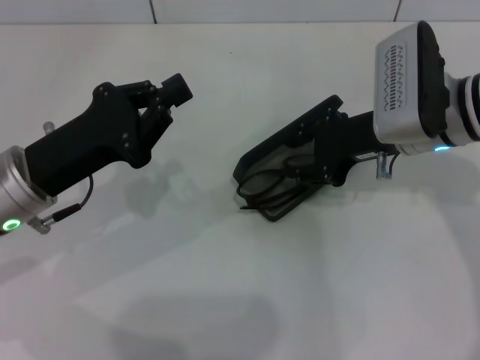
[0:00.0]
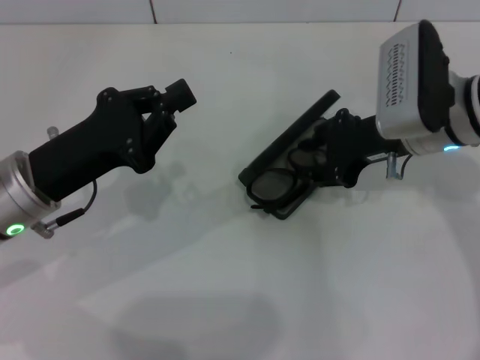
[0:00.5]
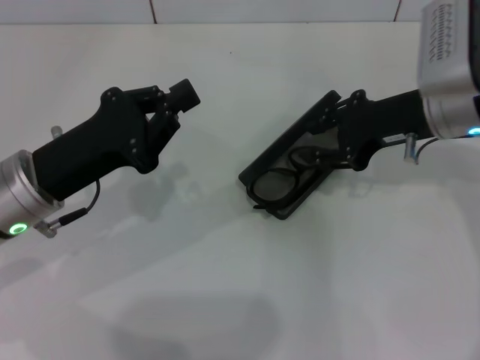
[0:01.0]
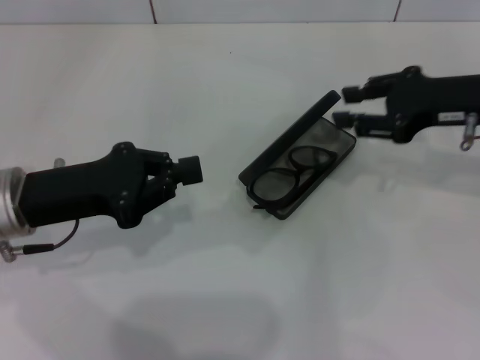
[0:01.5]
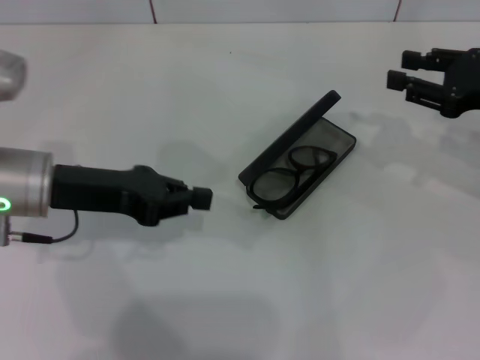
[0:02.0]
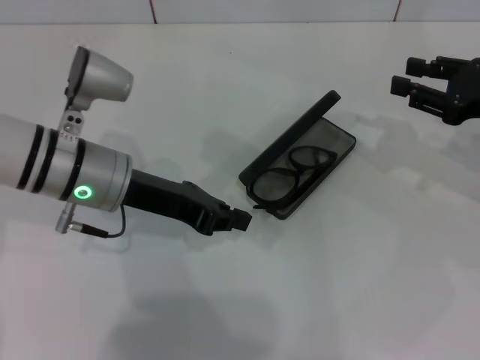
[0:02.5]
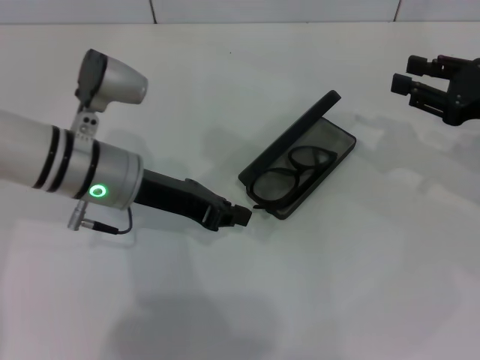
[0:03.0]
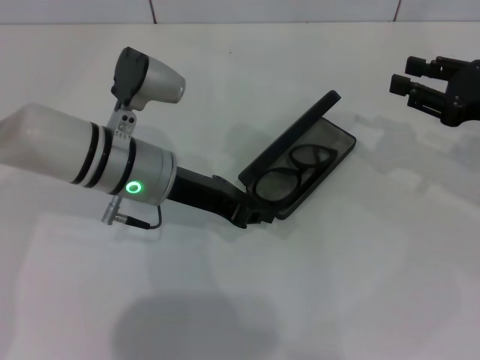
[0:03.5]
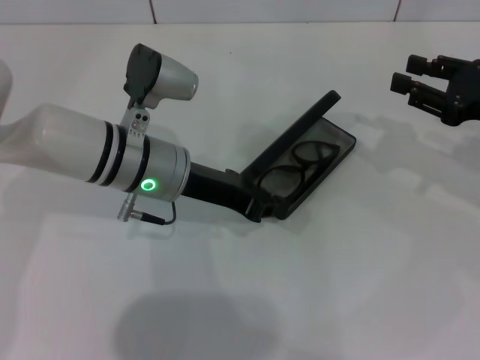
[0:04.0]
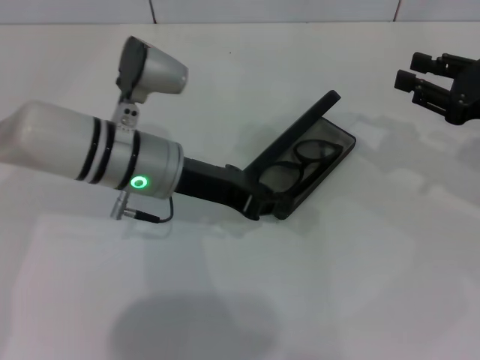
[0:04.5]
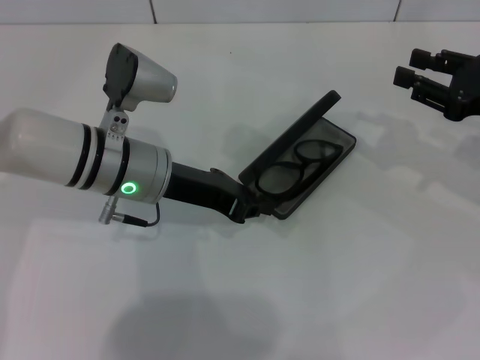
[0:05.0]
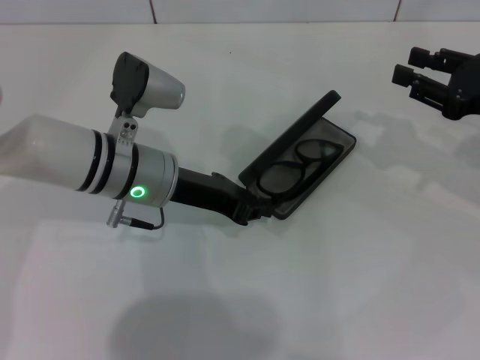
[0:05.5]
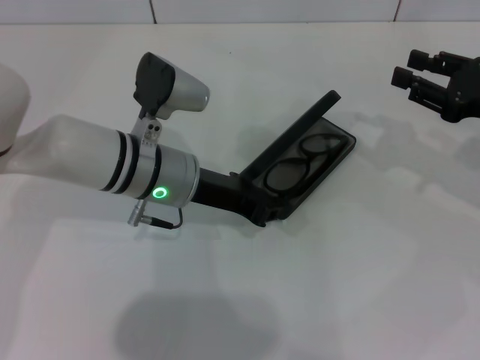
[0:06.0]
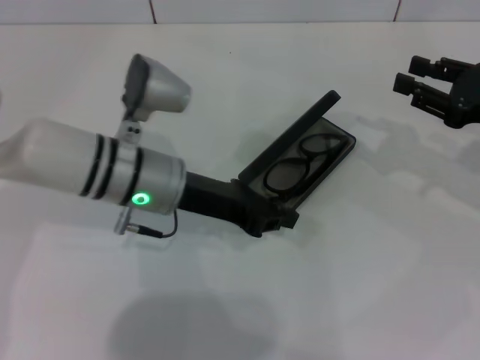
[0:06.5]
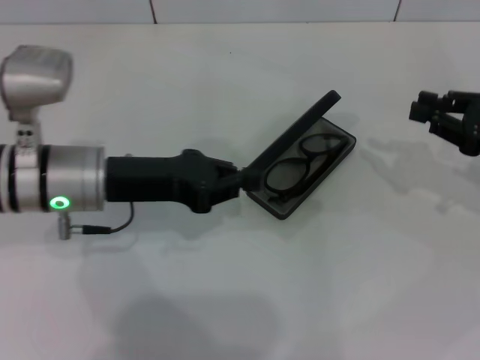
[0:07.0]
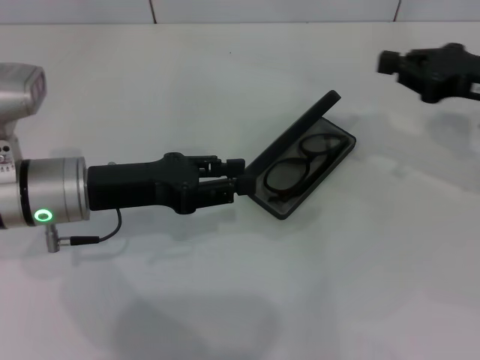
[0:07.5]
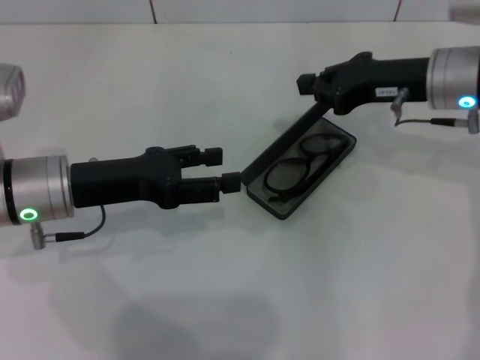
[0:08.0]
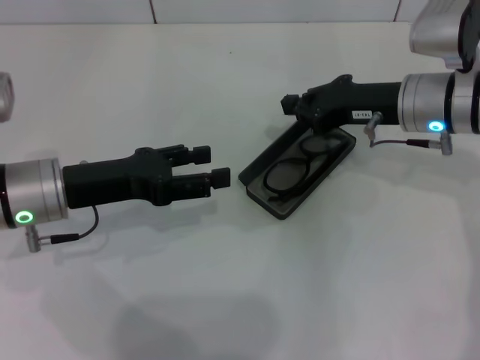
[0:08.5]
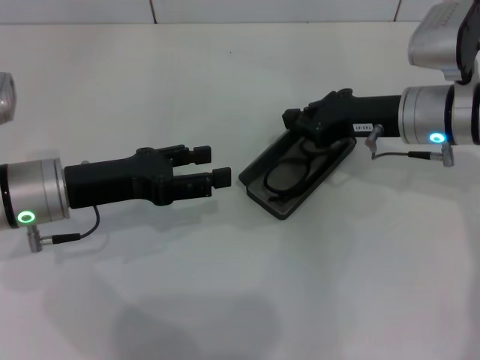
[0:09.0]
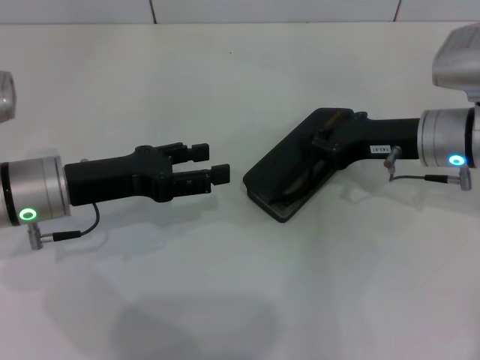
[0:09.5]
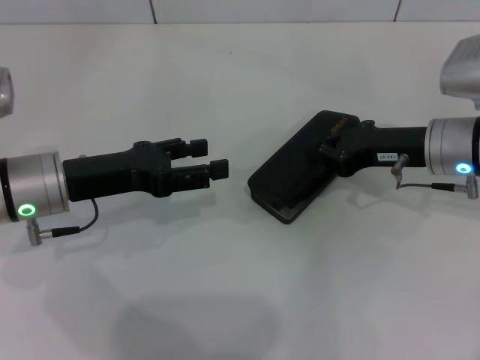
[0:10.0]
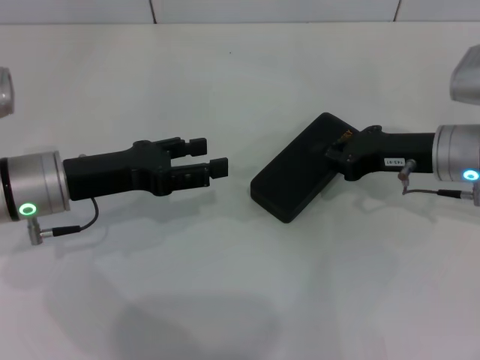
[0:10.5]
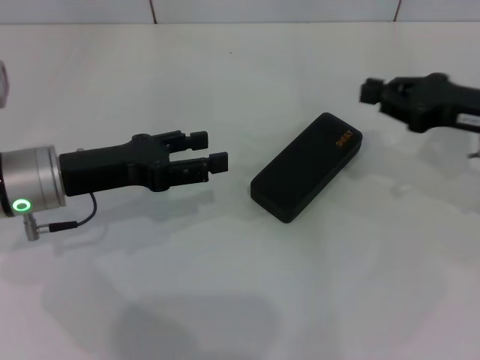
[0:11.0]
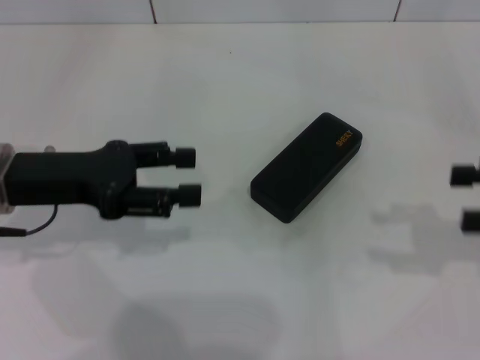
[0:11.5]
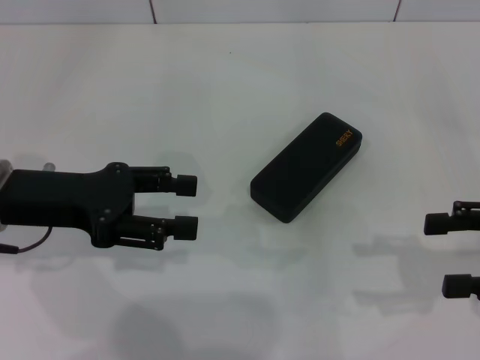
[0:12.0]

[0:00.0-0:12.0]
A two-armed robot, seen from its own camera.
Step, 0:01.0 to 0:10.0: Close the glasses case with your right hand.
0:00.0 to 0:02.0: The right gripper shifts about 15 cm to the right.
0:02.0 to 0:04.0: The left gripper heads to the right, covering some 10 cm.
0:04.0 to 0:06.0: There are only small adjustments of the grippers.
0:06.0 to 0:08.0: The left gripper moves to the left, some 10 cm, and opens its fingers; the right gripper travels to the left and forward by roughly 10 cm, and closes its fingers.
0:08.0 to 0:10.0: The right gripper heads downward, covering about 5 cm.
0:10.0 to 0:12.0: The right gripper heads to the right and backward, covering approximately 15 cm, and opens up. Meanwhile the left gripper shifts by about 5 cm.

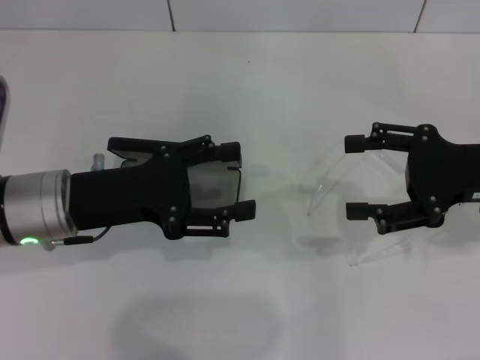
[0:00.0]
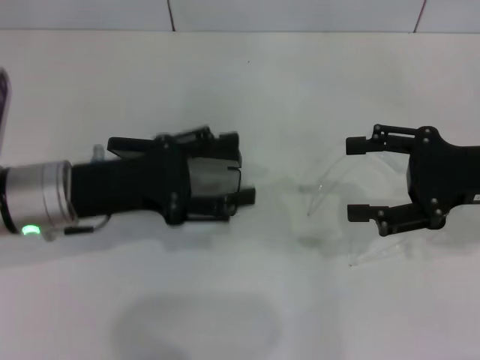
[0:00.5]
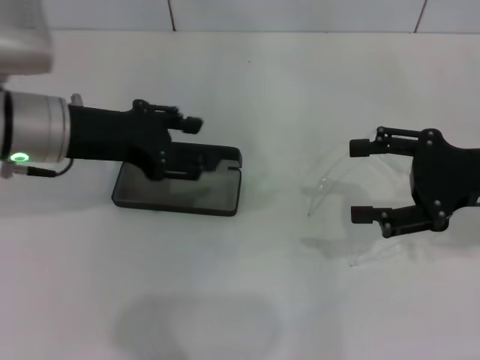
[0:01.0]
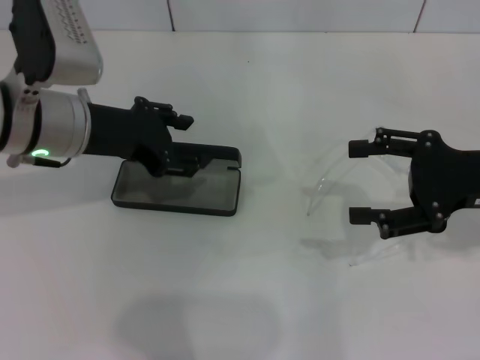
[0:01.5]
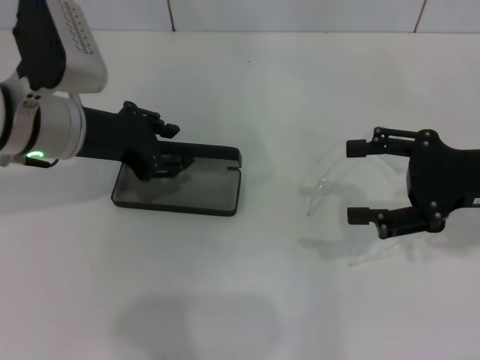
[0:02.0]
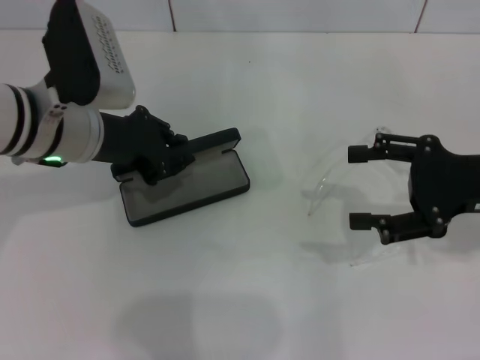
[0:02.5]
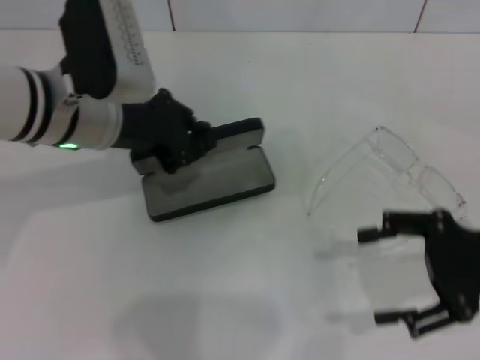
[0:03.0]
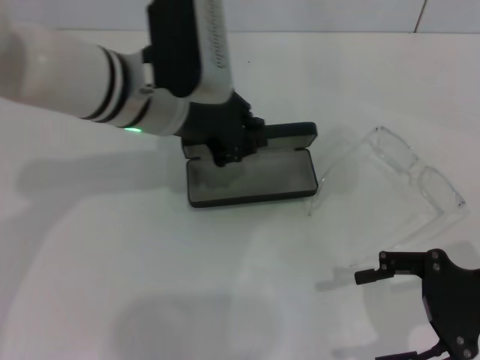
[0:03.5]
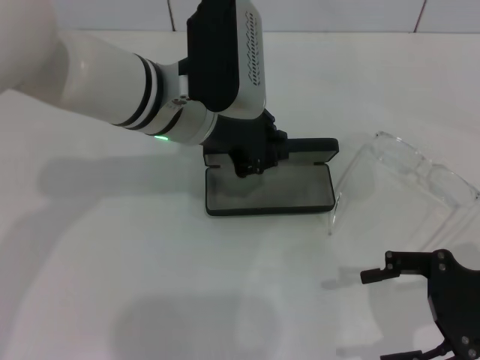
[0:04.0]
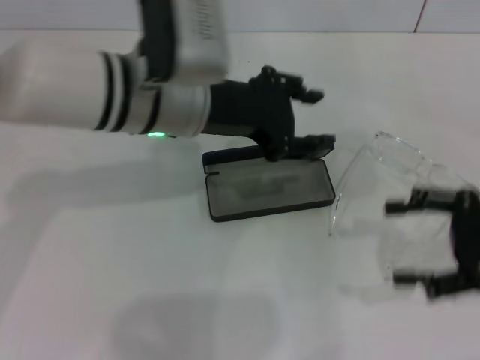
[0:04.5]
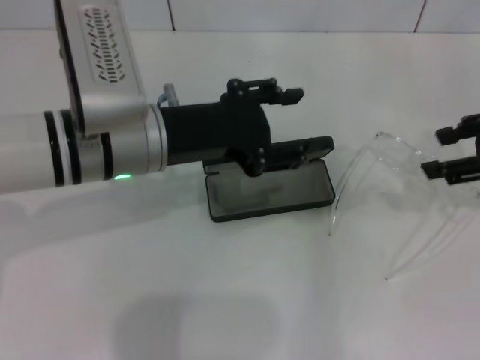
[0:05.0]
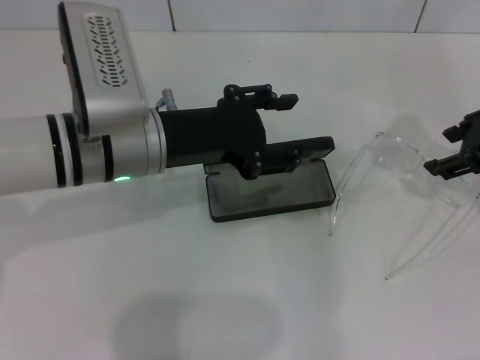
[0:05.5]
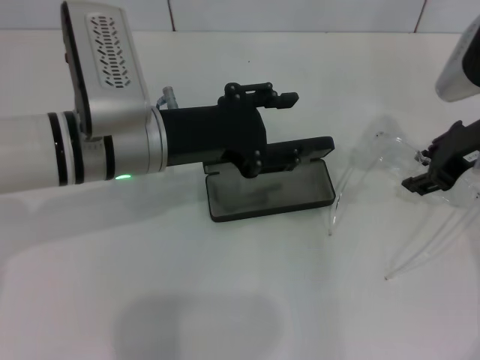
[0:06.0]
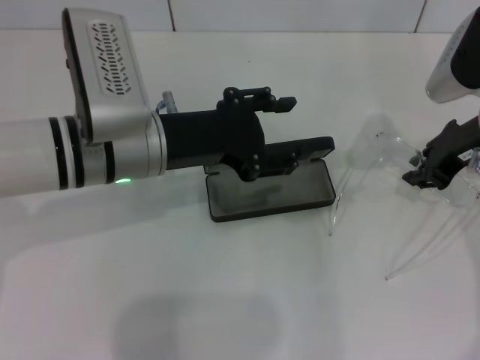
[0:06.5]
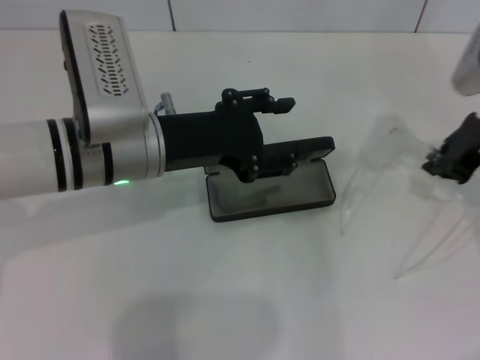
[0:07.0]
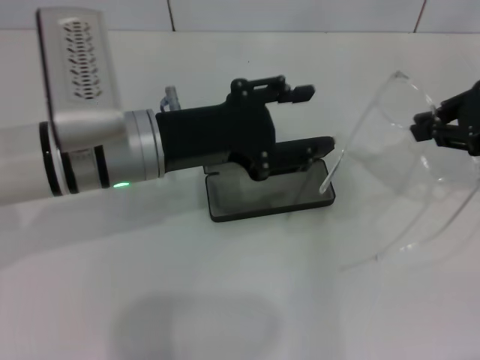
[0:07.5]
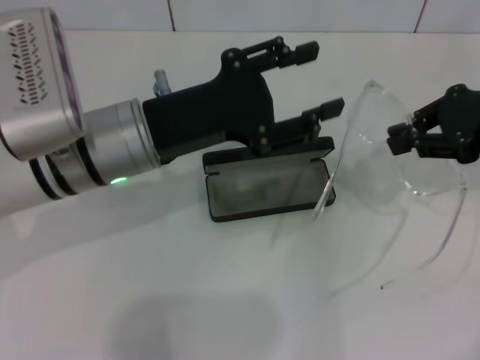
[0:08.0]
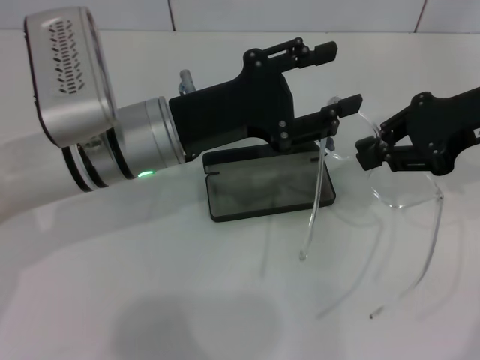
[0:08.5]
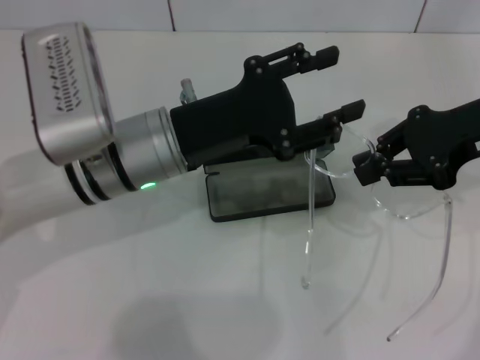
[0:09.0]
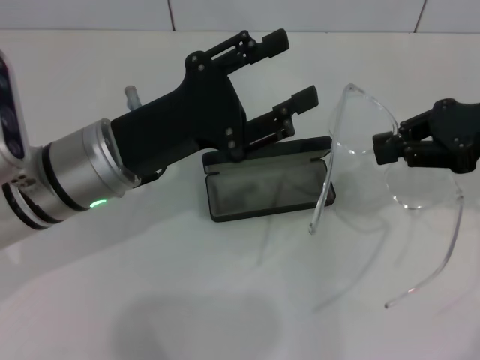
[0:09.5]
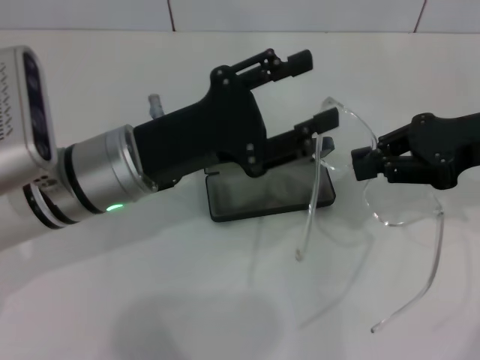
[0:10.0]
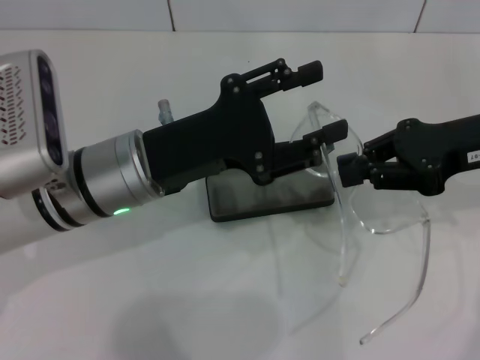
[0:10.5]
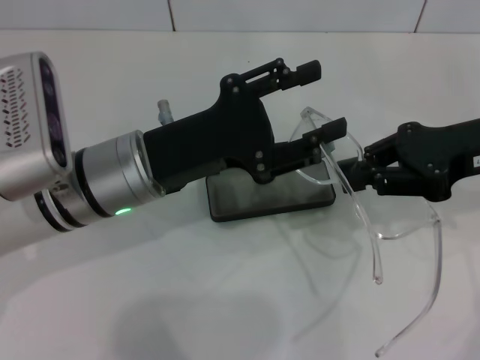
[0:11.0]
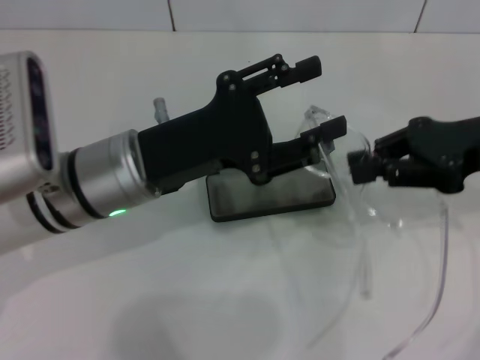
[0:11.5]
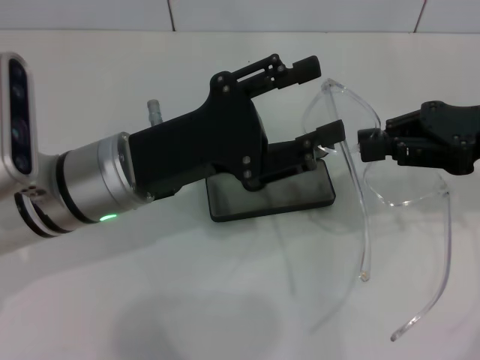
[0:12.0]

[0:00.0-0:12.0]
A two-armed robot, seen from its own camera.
Step, 0:00.0 to 0:02.0: Grab the glasses case with your left hand.
Step, 0:02.5 to 0:04.0: Place the glasses case in the center of the table with your left hand.
Step, 0:04.5 to 0:06.5: Grab the eyeglass frame with your right hand.
0:00.0 to 0:02.0: The left gripper is displaced forward by some 5 cm, and closes its fingers.
0:02.0 to 0:04.0: The right gripper goes approximately 5 cm backward, while the left gripper shifts some 10 cm to the right, and closes its fingers.
0:04.0 to 0:06.0: The left gripper goes some 5 cm to the left, and opens its fingers. The right gripper goes roughly 15 cm forward and upward.
0:06.0 to 0:08.0: The right gripper shifts by some 5 cm, and closes.
0:10.0 to 0:12.0: There are only small adjustments of the grippers.

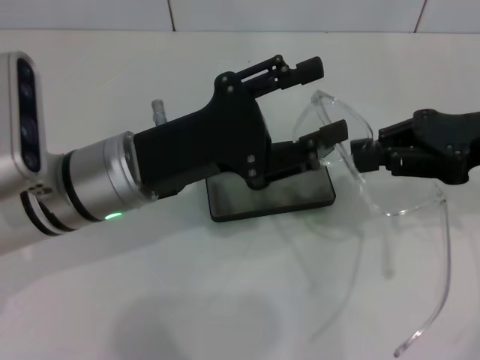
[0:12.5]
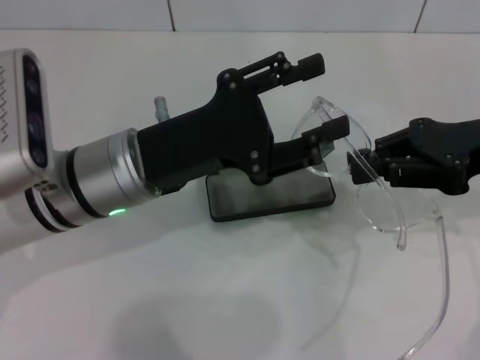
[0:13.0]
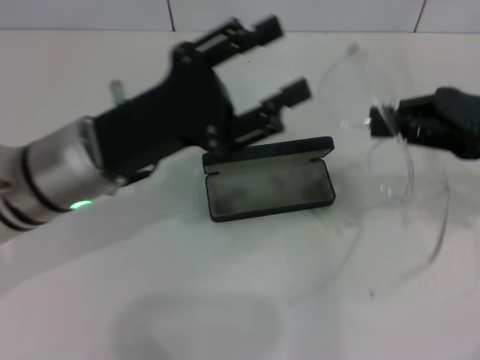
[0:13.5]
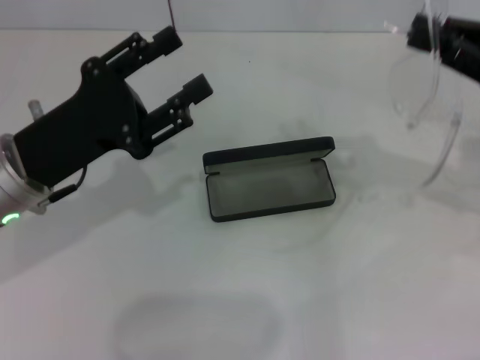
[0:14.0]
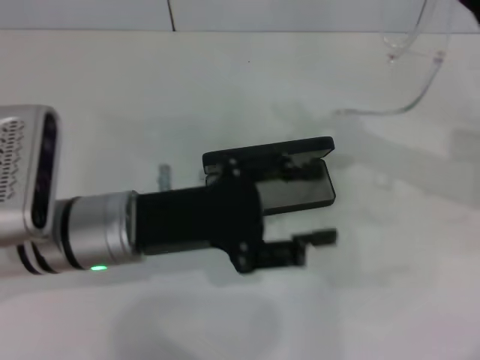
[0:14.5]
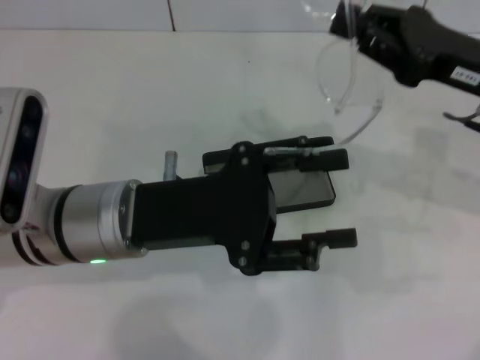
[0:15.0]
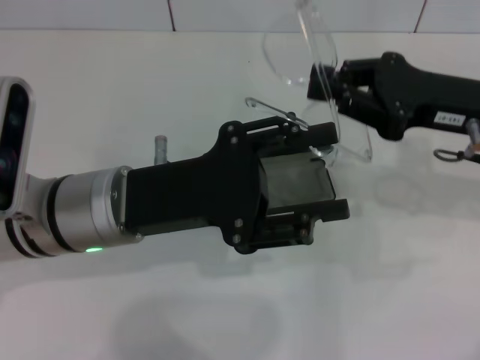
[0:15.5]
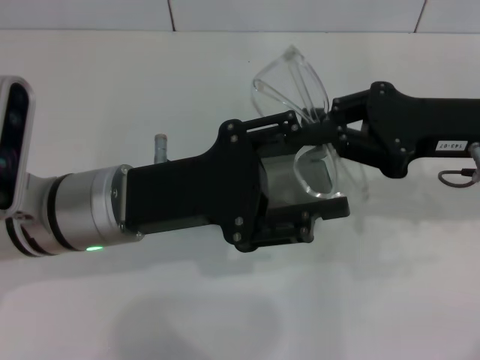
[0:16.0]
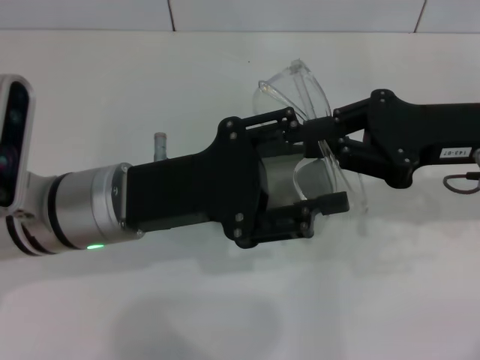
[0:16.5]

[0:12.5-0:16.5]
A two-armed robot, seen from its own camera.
0:12.5 to 0:14.5: The left gripper goes to the left and returns, approximately 10 cm each way.
0:14.5 to 0:16.5: The right gripper ends up some 5 cm from where it was.
